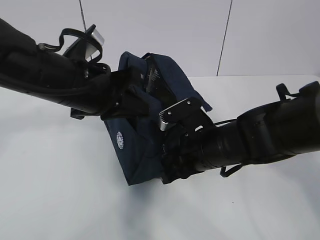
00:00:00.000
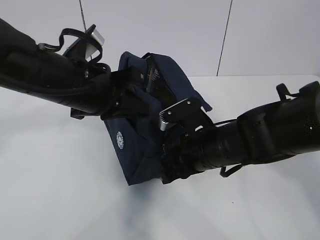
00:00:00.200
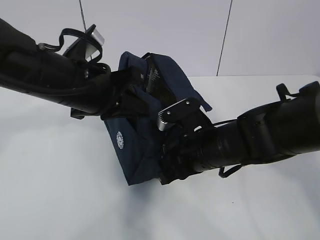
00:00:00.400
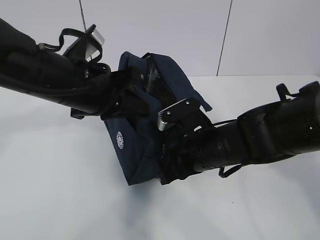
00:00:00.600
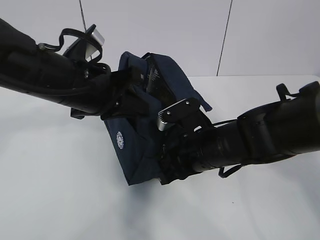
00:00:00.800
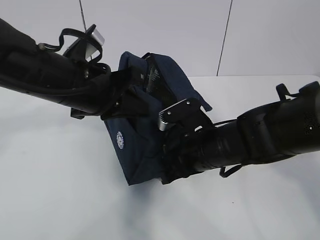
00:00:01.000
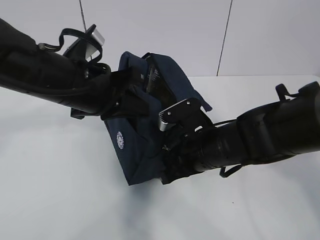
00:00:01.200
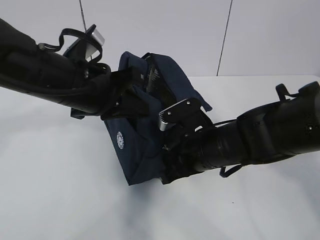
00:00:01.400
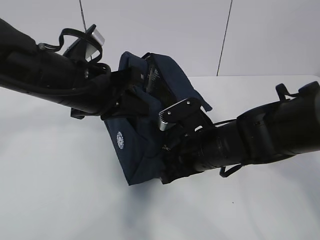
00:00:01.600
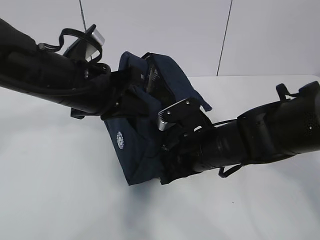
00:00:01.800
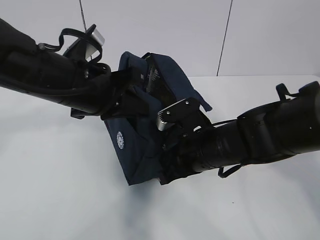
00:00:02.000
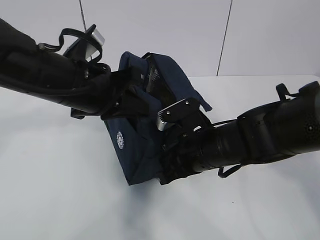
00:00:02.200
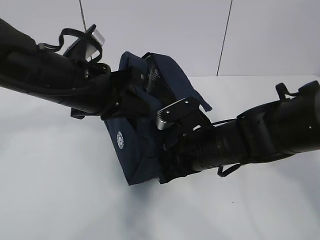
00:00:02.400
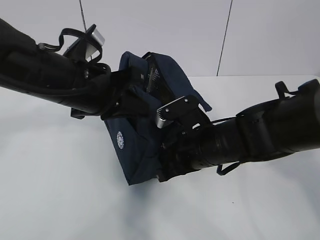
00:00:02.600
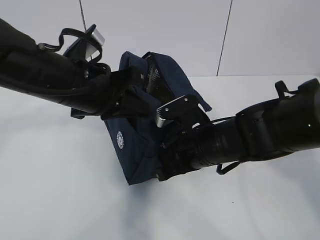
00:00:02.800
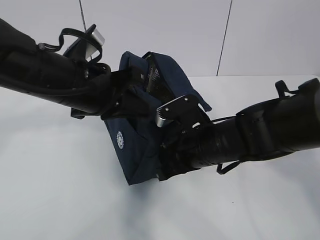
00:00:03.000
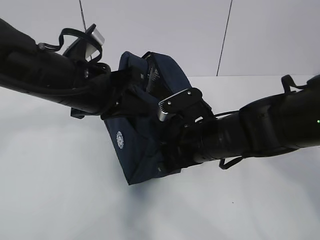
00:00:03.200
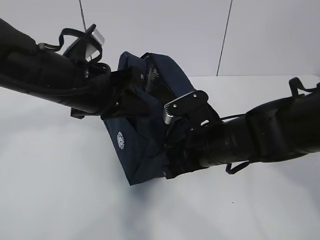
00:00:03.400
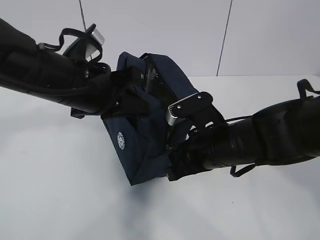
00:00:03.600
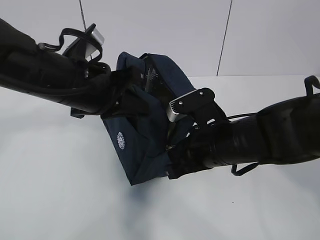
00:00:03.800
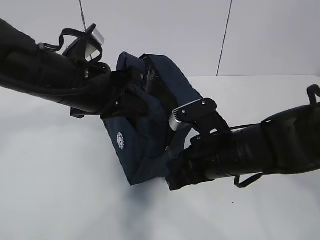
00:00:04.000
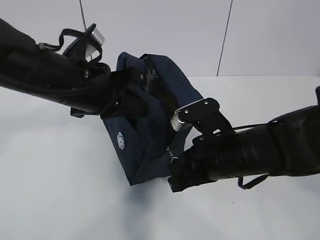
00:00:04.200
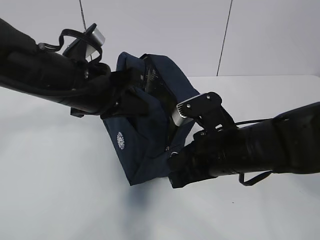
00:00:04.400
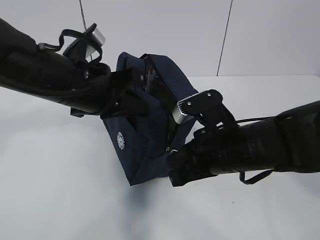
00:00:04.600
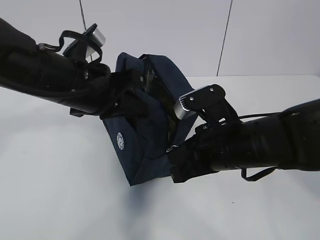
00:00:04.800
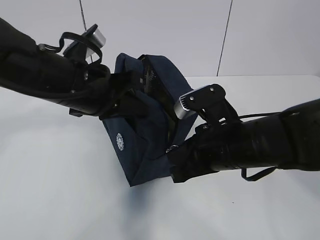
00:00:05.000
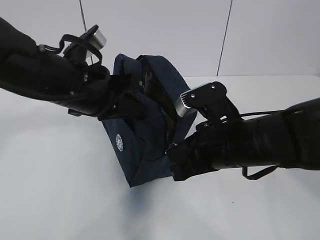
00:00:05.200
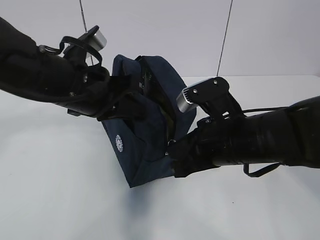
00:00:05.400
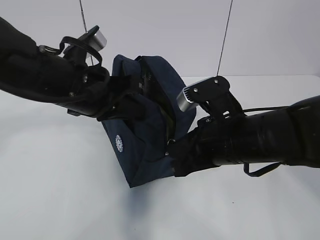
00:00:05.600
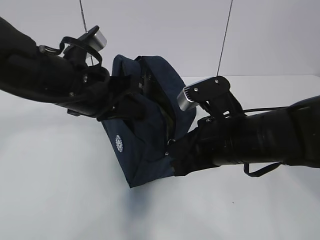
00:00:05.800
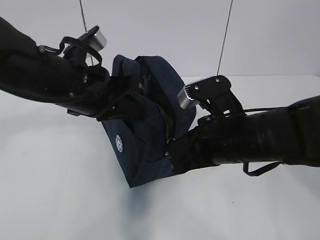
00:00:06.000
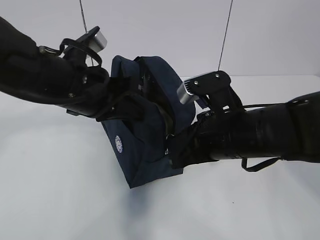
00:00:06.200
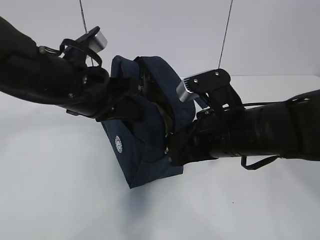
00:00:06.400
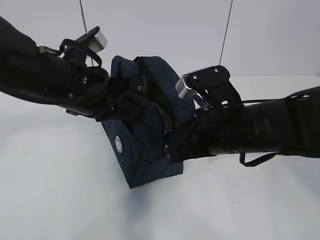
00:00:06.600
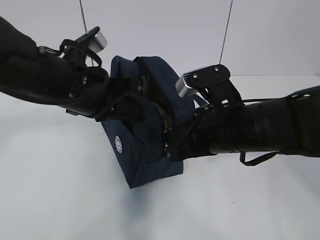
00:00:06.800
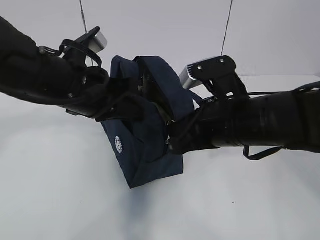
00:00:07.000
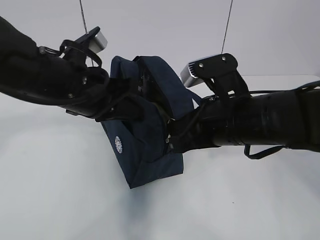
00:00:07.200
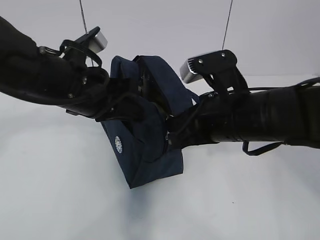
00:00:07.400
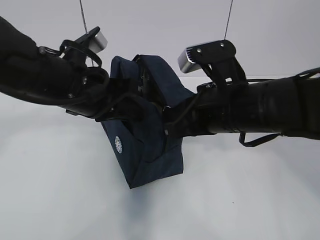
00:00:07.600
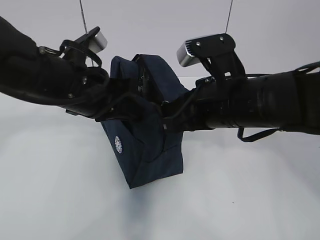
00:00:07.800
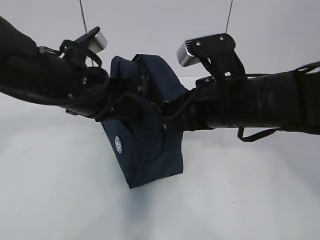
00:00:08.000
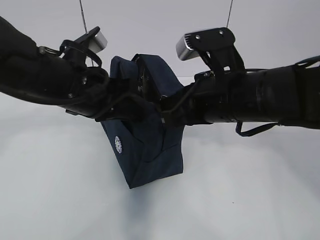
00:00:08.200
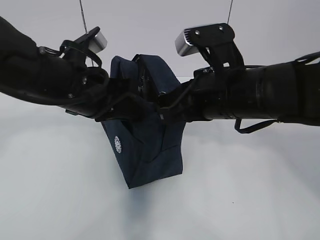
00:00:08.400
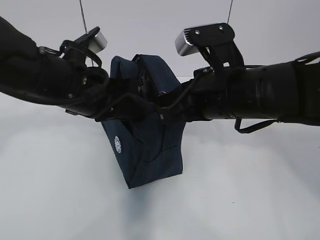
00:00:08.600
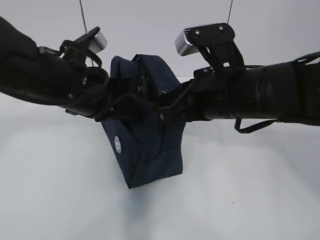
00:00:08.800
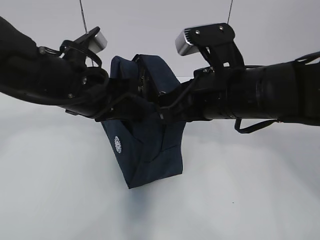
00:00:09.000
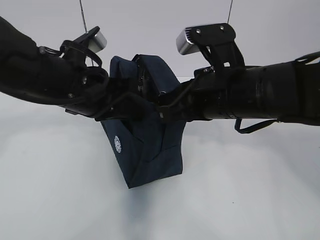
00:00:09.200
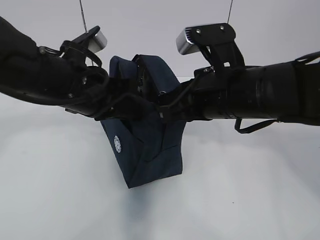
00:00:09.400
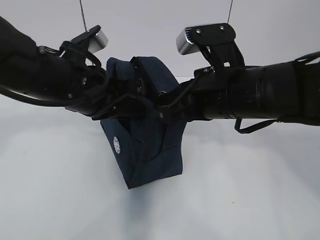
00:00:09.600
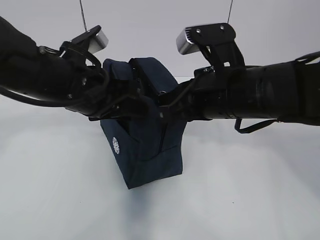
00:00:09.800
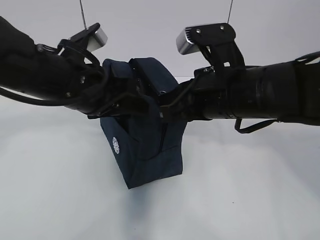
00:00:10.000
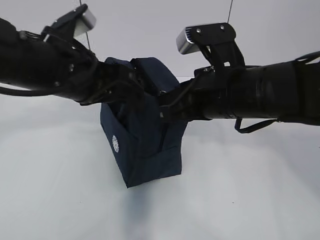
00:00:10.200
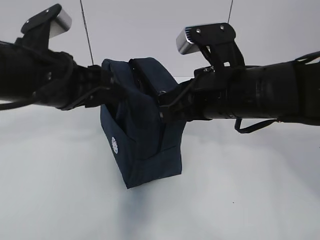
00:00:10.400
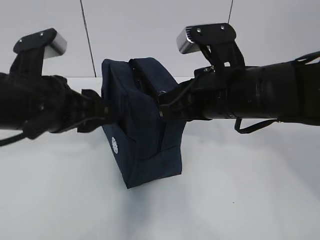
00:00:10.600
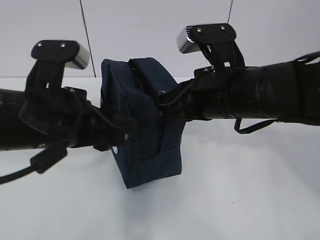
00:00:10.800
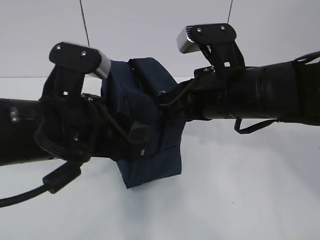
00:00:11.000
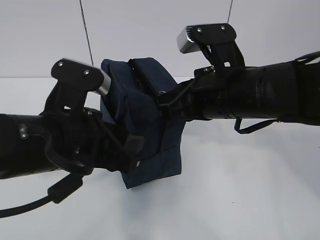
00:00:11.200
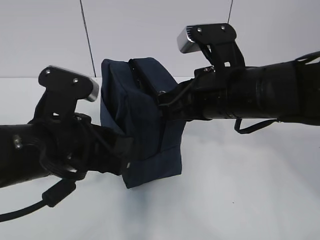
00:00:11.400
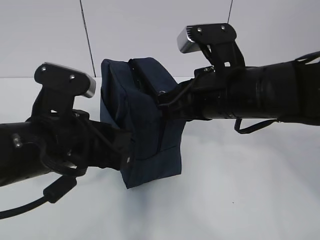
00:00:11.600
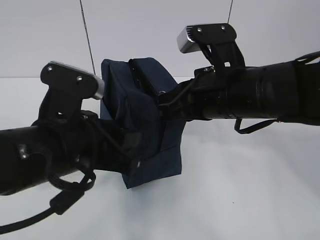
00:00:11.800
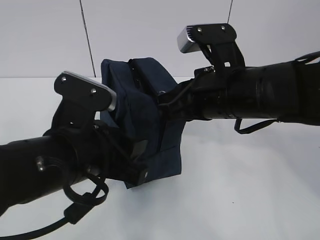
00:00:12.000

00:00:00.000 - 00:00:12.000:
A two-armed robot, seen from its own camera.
Step, 00:00:00.000 - 00:00:11.800: Grab the lunch bag with your left hand.
00:00:00.000 - 00:00:03.000: Both grippers stay put.
00:00:03.000 - 00:00:04.400: The right gripper ends up about 5 cm from where it was.
00:00:04.400 - 00:00:06.000: The grippers make only small movements.
00:00:06.000 - 00:00:09.000: The grippers move only a little.
00:00:09.000 - 00:00:10.400: The left gripper opens up.
00:00:10.400 - 00:00:12.000: The left gripper goes approximately 10 cm backward and downward.

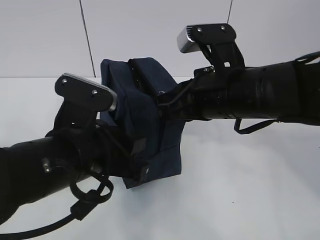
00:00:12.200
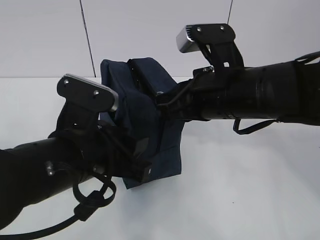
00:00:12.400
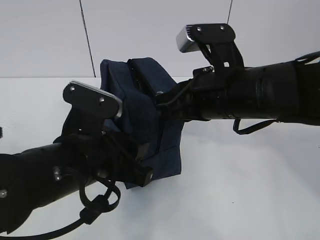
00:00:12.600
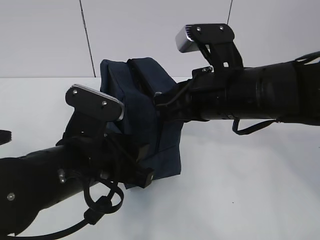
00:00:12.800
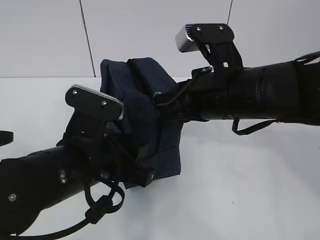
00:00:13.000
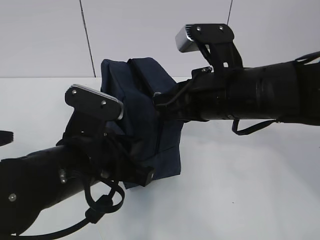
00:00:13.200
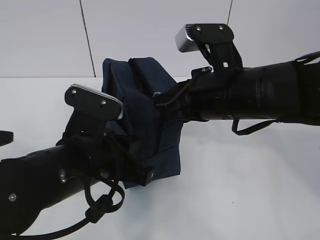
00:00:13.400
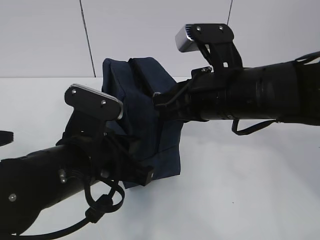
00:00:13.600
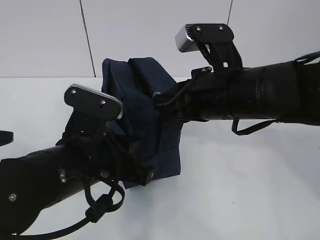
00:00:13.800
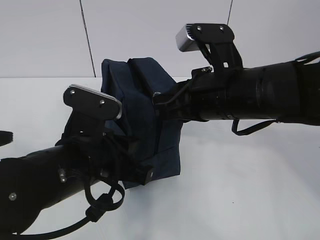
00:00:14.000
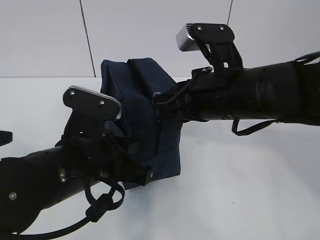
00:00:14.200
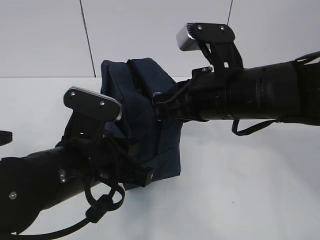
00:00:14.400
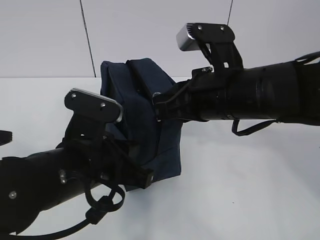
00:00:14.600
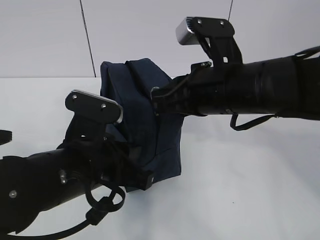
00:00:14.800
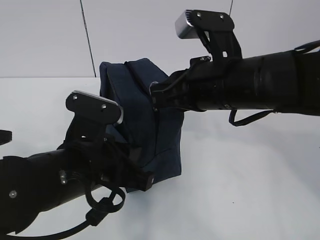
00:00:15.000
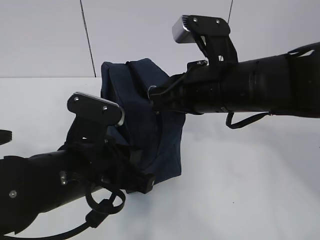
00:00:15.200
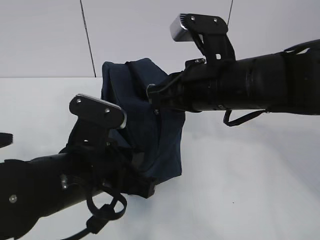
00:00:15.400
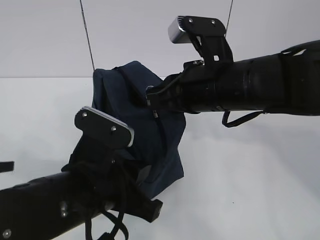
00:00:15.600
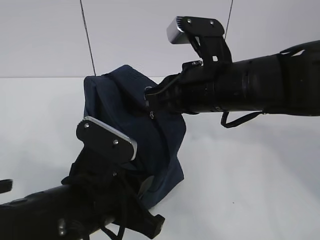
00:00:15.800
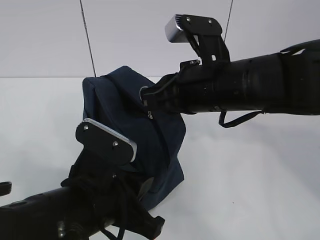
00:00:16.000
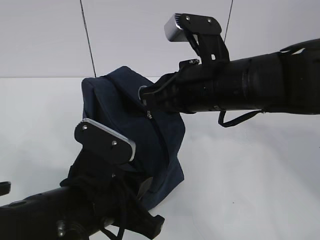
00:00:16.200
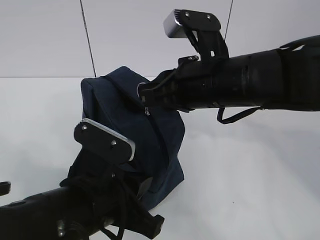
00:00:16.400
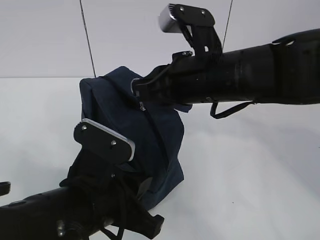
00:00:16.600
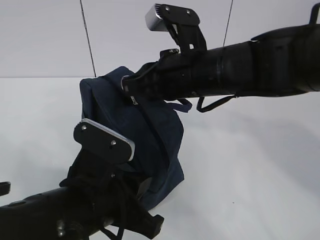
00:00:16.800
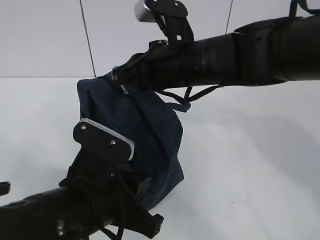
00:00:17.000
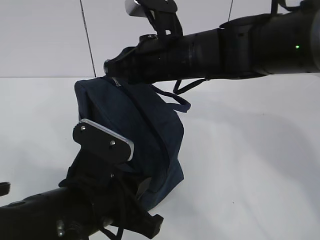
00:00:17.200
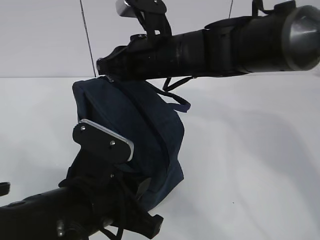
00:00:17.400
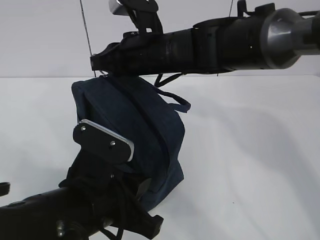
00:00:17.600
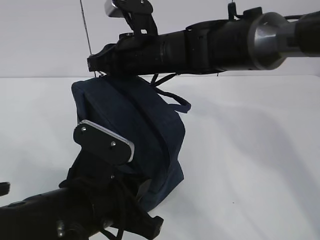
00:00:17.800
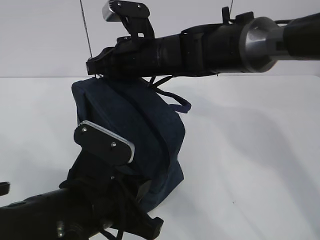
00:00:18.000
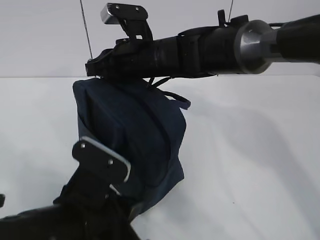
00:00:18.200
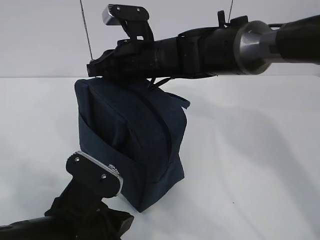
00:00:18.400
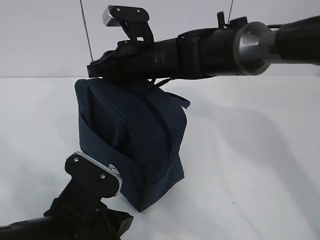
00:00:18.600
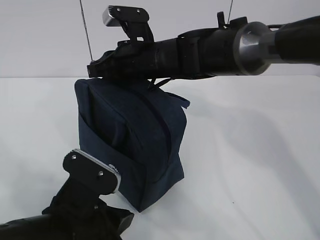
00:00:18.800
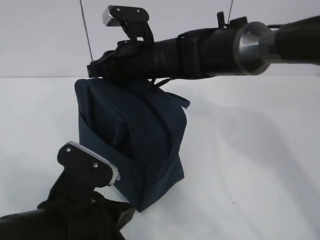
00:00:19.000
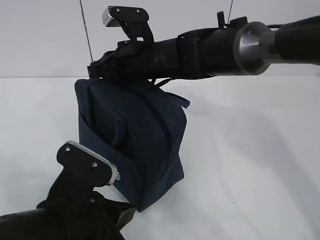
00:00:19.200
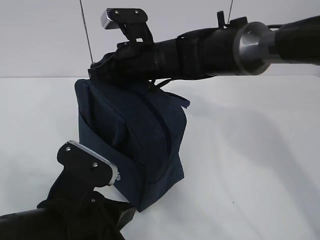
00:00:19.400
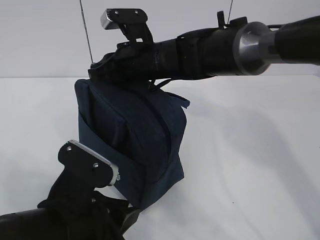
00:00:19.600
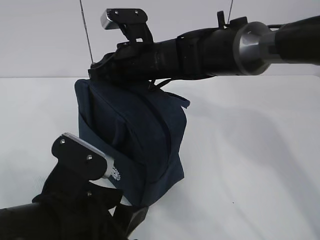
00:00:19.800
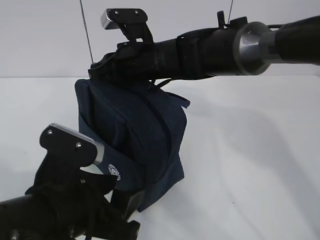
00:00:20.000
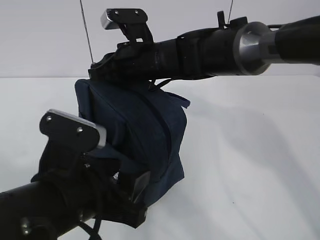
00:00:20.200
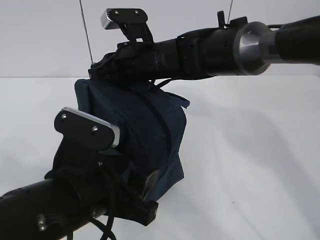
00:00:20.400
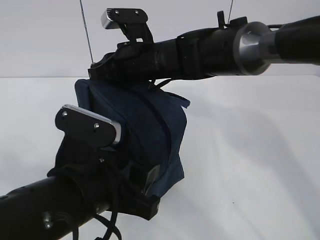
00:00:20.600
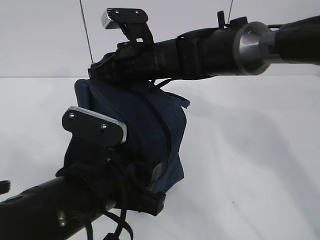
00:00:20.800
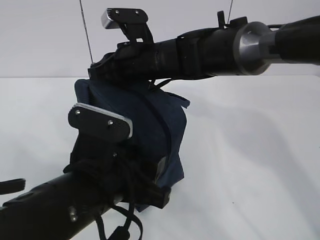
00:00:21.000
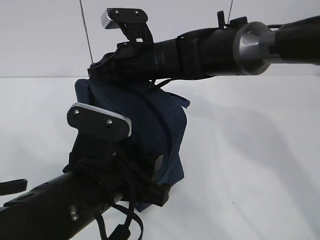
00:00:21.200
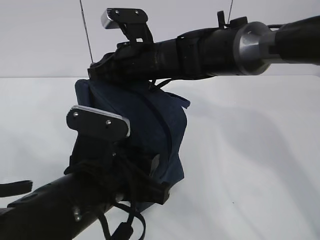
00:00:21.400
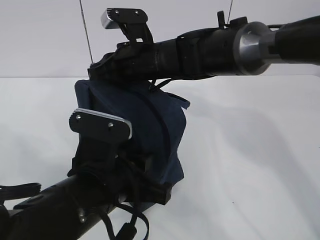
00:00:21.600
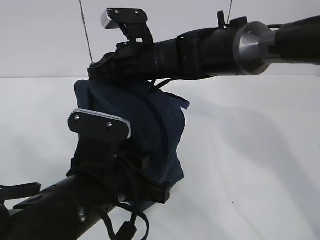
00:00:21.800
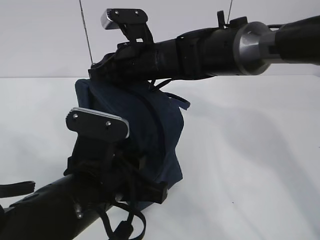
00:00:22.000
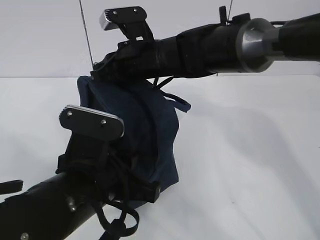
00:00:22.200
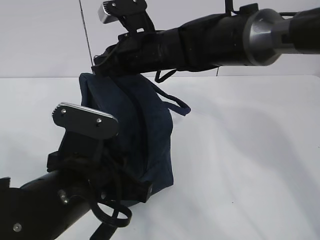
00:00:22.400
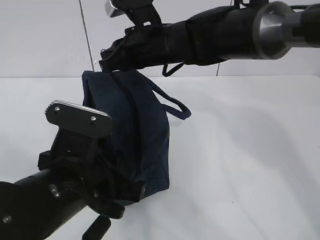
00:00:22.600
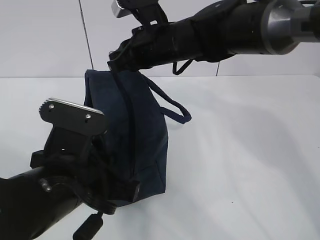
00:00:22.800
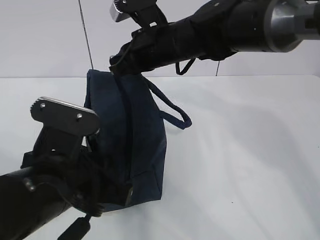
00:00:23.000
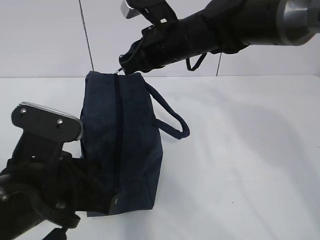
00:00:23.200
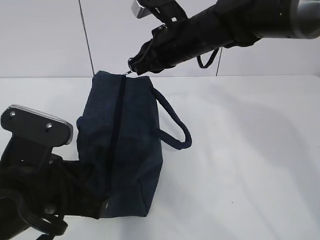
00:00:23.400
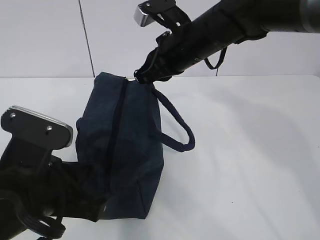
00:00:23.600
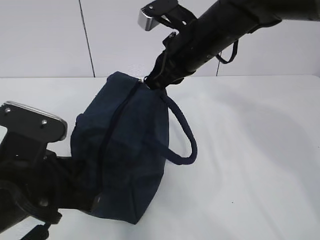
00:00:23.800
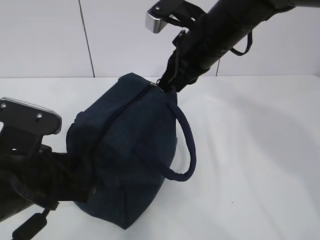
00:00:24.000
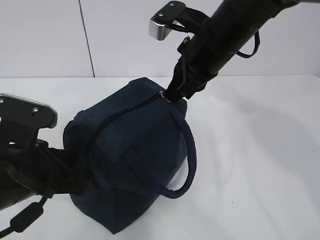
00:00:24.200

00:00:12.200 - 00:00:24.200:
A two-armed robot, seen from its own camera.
Step, 00:00:12.200 - 00:00:15.000: Pull the zipper with your right hand.
Step, 00:00:15.200 - 00:00:16.000: Grab the lunch bag with your left hand.
00:00:12.200 - 00:00:13.800: The left gripper closes its fingers.
00:00:13.800 - 00:00:15.200: The grippers make only small movements.
00:00:16.600 - 00:00:18.200: The right gripper moves forward and to the left, roughly 15 cm.
00:00:18.200 - 00:00:19.800: The left gripper opens.
00:00:19.800 - 00:00:21.200: There are only small adjustments of the grippers.
00:00:21.200 - 00:00:22.600: The left gripper closes up.
00:00:22.600 - 00:00:24.200: The left gripper goes some 5 cm to the left, while the right gripper is displaced to the right and backward by some 10 cm.
